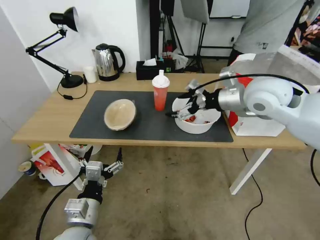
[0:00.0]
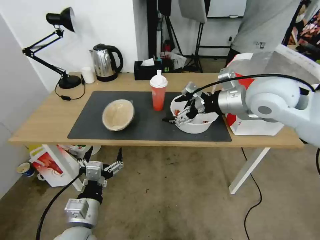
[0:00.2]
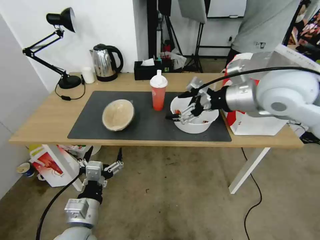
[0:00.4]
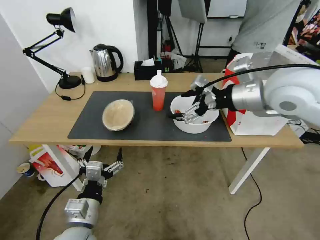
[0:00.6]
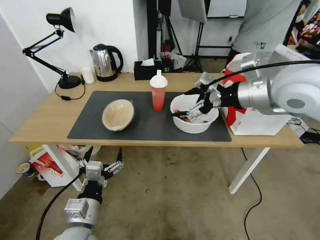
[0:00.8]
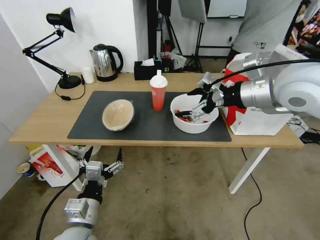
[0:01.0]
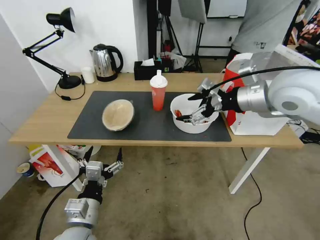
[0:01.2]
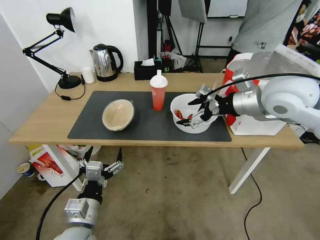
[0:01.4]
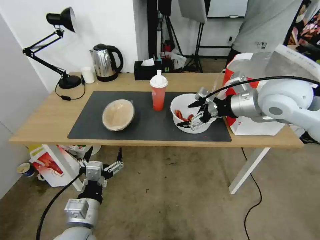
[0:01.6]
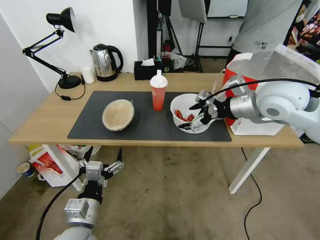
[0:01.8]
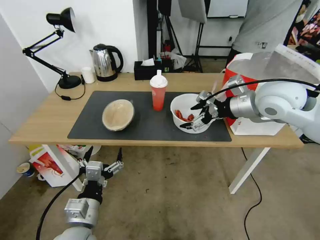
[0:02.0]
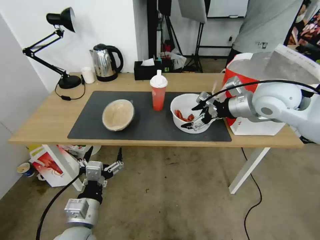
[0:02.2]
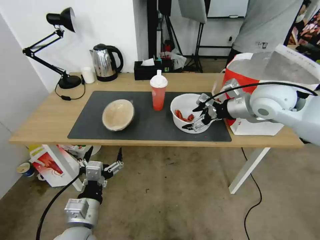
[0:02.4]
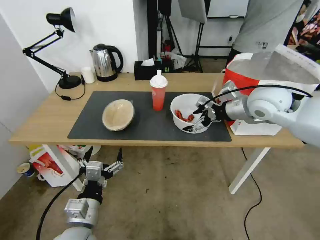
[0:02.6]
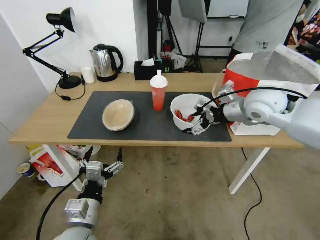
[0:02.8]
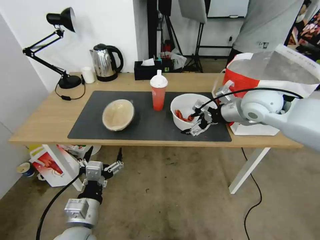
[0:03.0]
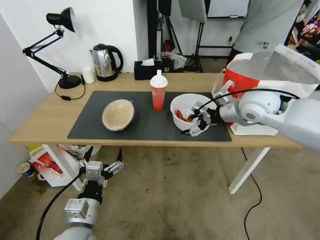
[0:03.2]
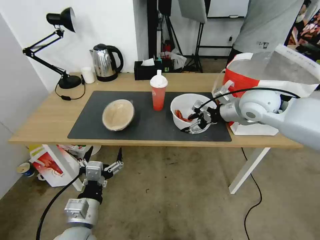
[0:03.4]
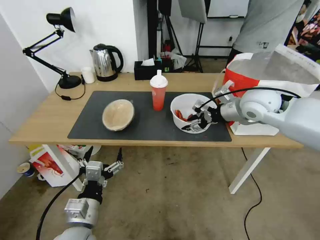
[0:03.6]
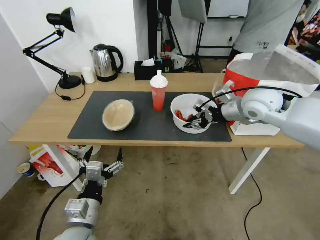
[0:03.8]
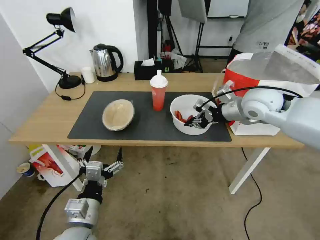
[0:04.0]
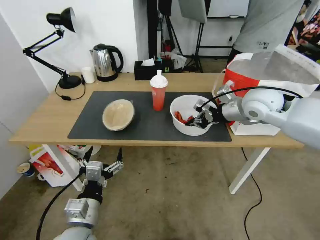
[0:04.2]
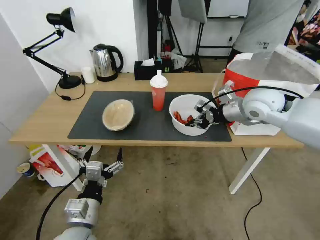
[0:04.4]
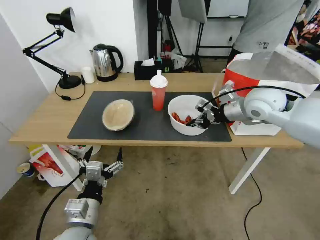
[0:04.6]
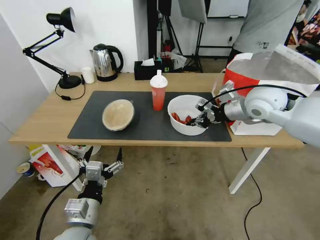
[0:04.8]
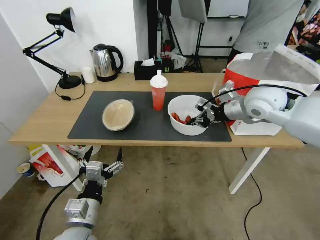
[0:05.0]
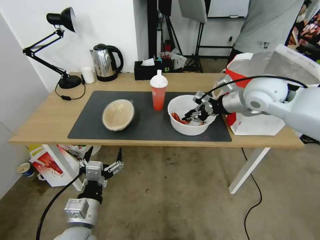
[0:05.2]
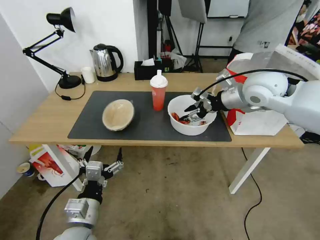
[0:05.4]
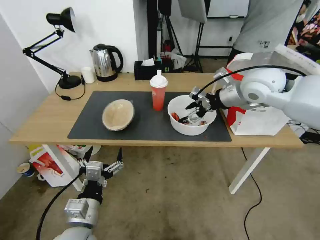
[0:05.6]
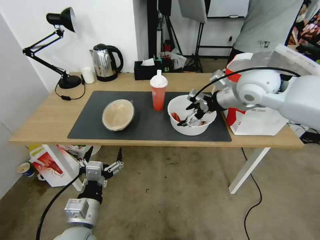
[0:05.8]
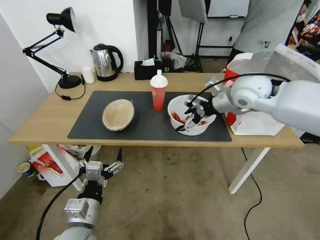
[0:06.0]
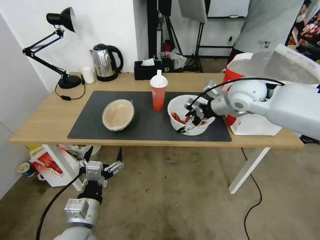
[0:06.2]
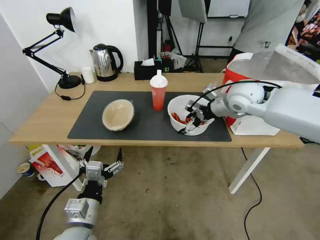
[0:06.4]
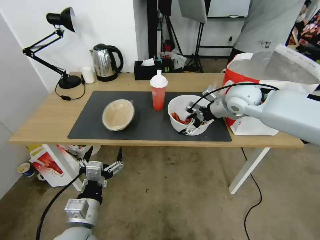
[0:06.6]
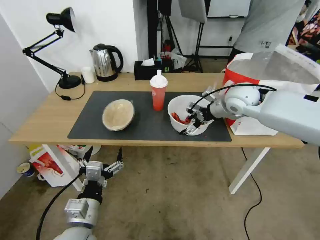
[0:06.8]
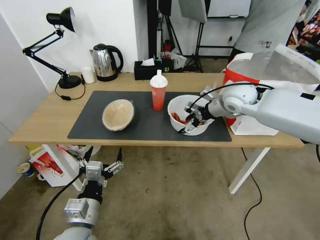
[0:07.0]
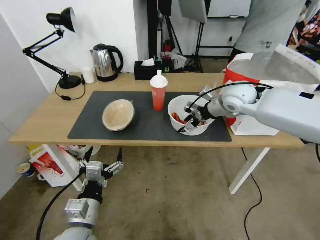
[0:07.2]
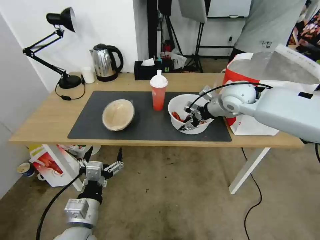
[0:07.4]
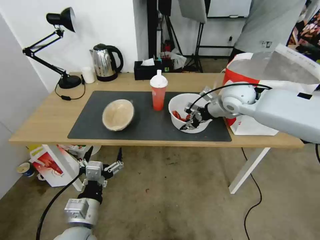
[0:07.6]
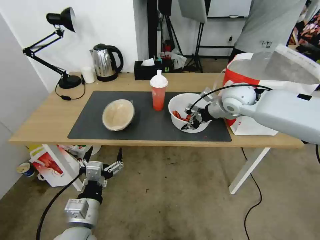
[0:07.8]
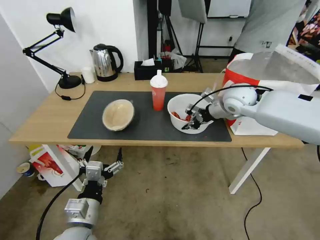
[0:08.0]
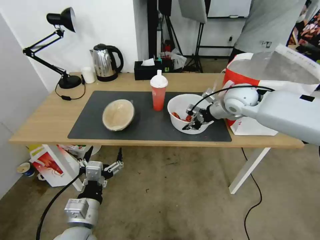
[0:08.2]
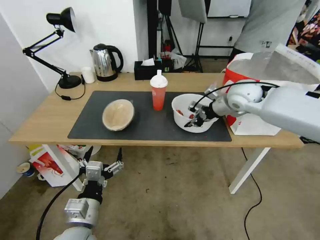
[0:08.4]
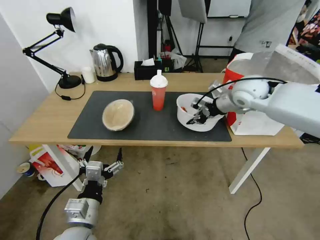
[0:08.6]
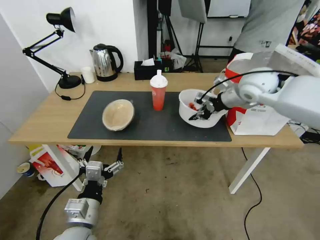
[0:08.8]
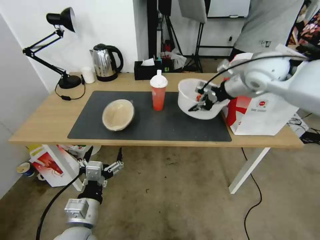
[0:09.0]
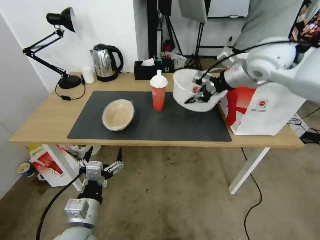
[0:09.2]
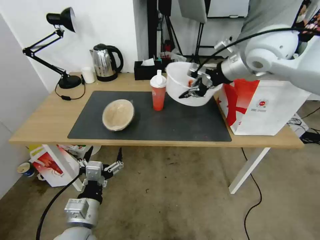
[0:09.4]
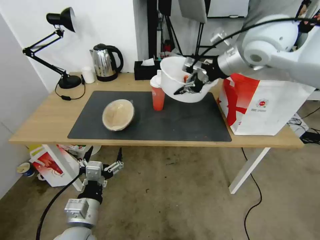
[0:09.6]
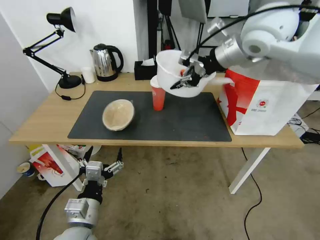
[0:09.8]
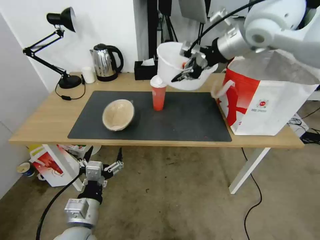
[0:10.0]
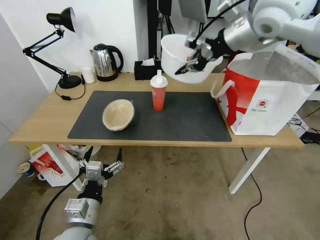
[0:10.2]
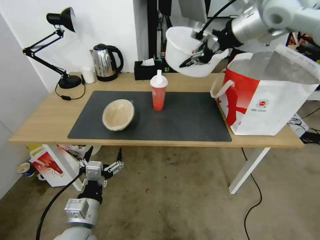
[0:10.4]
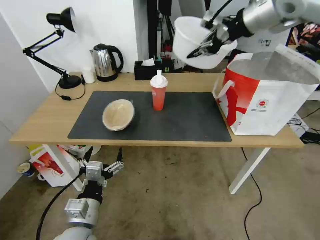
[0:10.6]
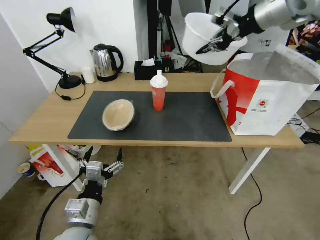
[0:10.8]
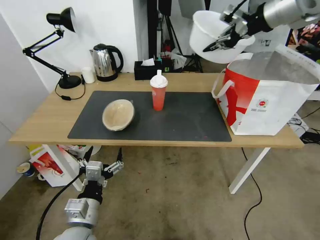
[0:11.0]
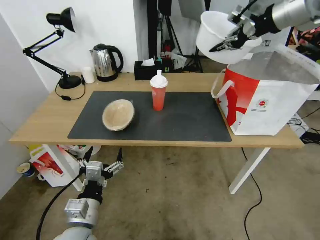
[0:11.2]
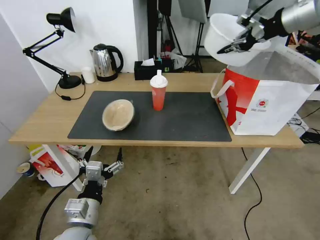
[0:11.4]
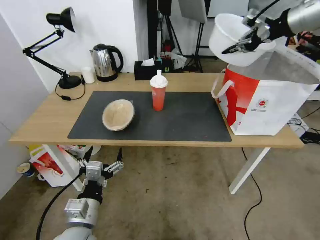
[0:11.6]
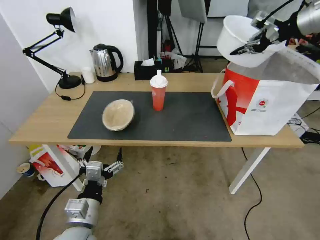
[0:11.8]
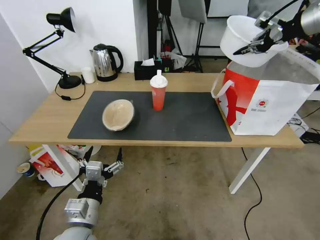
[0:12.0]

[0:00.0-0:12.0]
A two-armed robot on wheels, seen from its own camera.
Task of the whole recording: Pick up the trash from the table and place it into the takeout bag.
0:01.6 to 0:03.0: The right gripper travels downward by approximately 5 cm.
0:03.0 to 0:04.4: The right gripper closes up.
0:04.4 to 0:06.0: The right gripper shifts by approximately 5 cm, and opens.
0:06.0 to 0:07.6: The right gripper shifts approximately 5 cm downward, and closes.
0:07.6 to 0:09.0: The right gripper shifts roughly 10 cm upward.
0:09.0 to 0:10.4: The right gripper moves upward, approximately 15 cm.
0:10.4 to 0:12.0: The right gripper goes about 15 cm to the right.

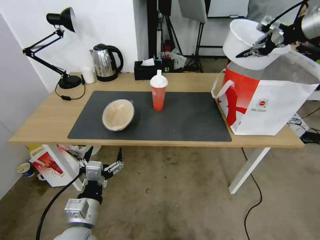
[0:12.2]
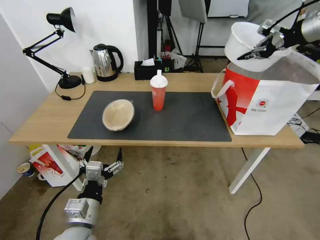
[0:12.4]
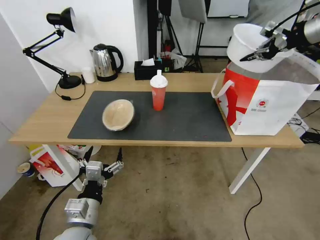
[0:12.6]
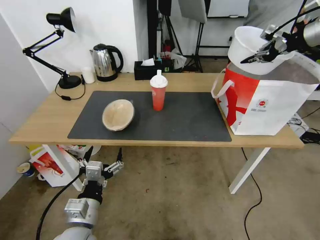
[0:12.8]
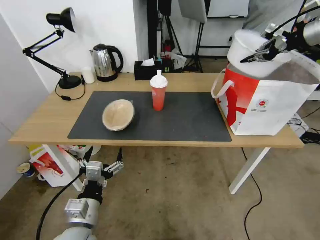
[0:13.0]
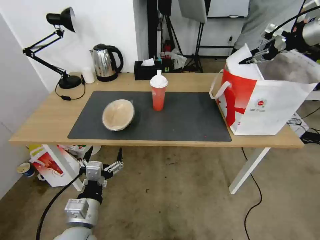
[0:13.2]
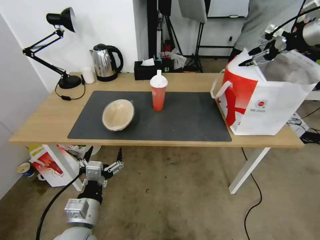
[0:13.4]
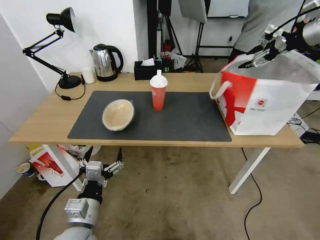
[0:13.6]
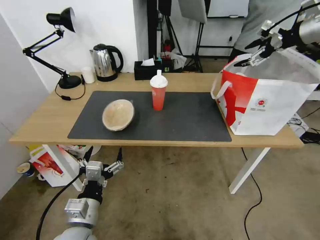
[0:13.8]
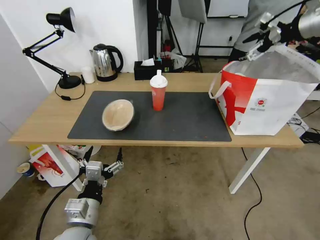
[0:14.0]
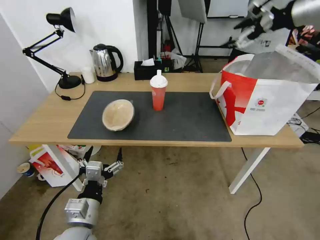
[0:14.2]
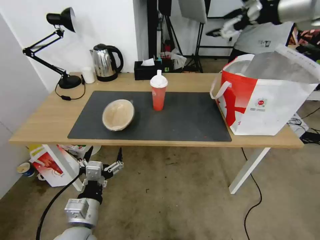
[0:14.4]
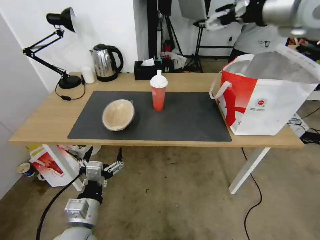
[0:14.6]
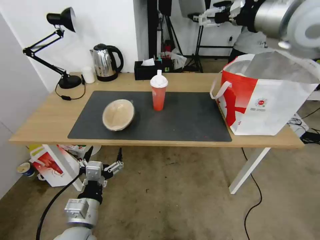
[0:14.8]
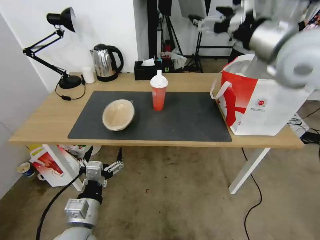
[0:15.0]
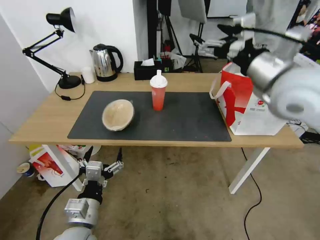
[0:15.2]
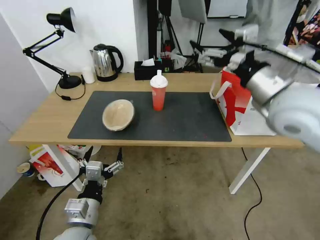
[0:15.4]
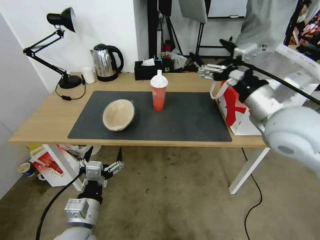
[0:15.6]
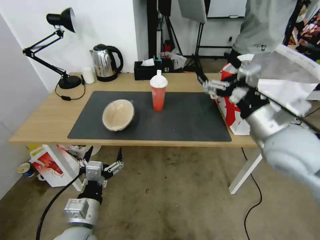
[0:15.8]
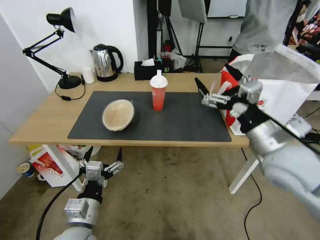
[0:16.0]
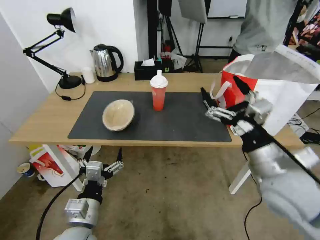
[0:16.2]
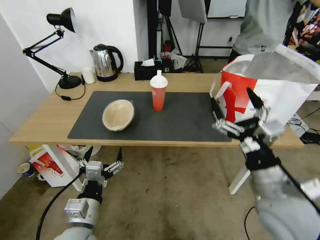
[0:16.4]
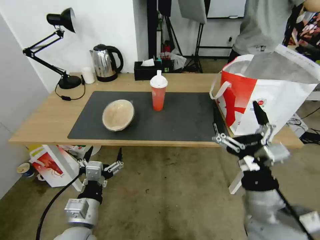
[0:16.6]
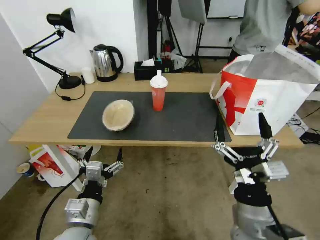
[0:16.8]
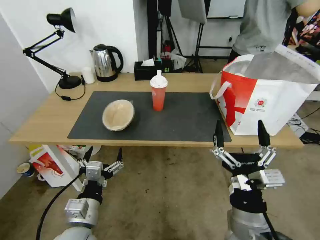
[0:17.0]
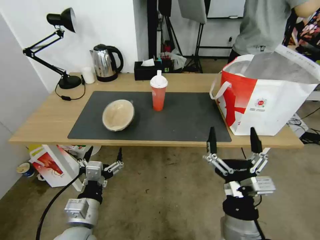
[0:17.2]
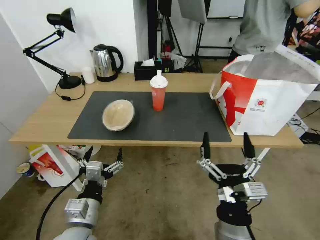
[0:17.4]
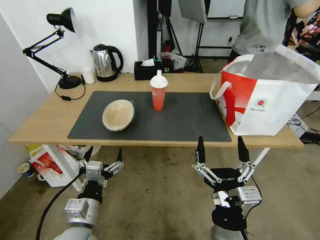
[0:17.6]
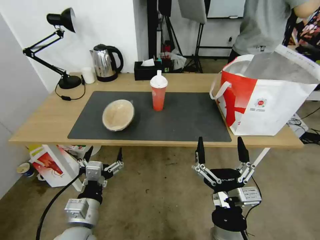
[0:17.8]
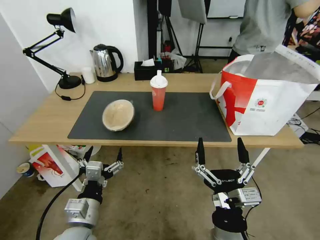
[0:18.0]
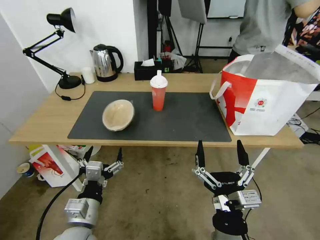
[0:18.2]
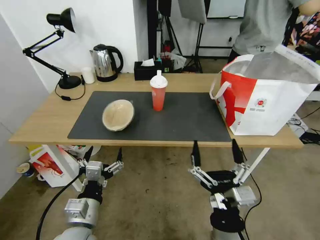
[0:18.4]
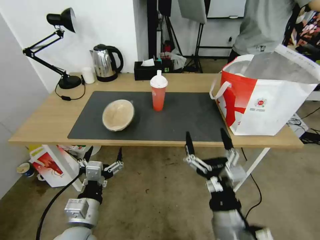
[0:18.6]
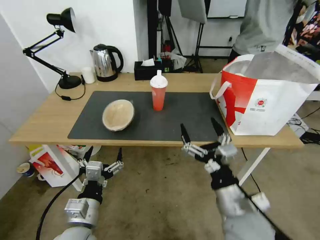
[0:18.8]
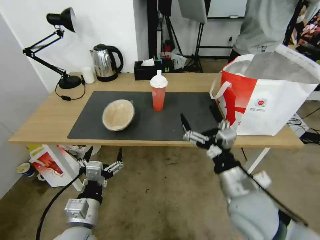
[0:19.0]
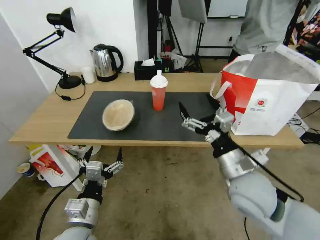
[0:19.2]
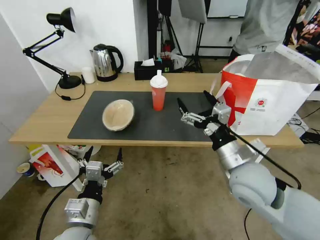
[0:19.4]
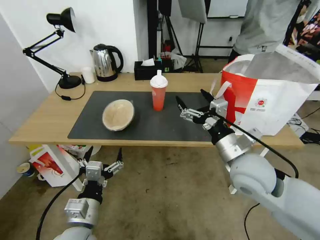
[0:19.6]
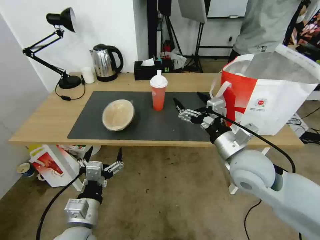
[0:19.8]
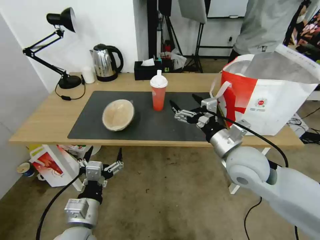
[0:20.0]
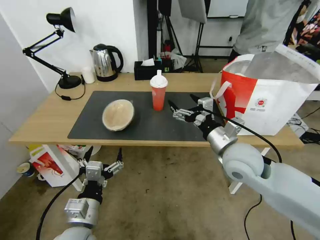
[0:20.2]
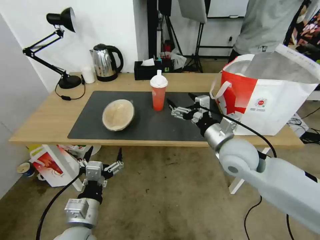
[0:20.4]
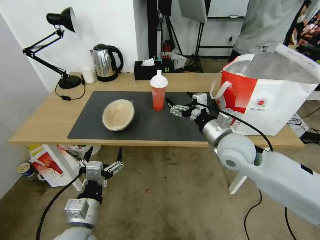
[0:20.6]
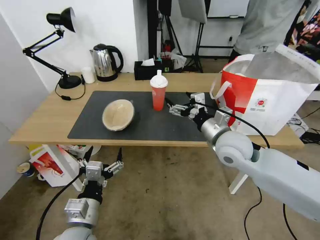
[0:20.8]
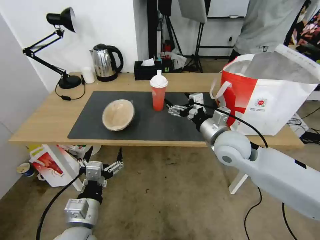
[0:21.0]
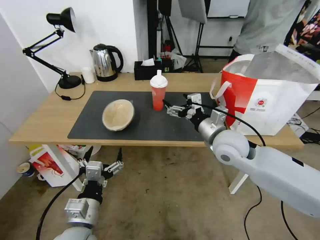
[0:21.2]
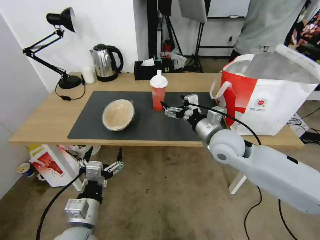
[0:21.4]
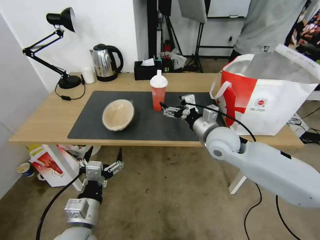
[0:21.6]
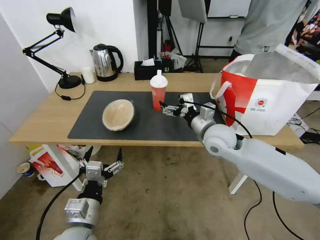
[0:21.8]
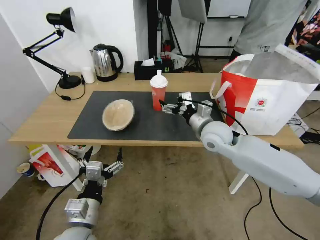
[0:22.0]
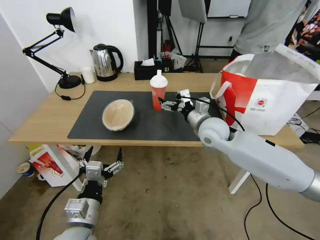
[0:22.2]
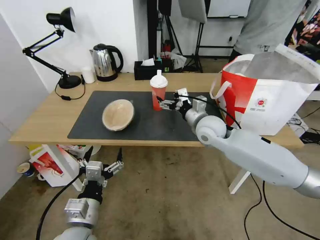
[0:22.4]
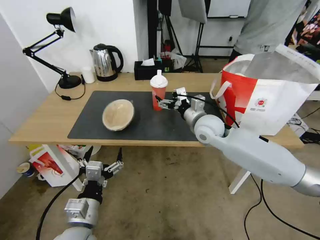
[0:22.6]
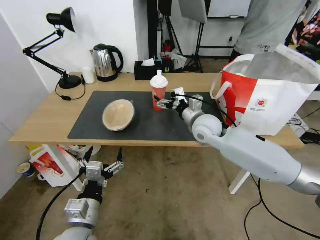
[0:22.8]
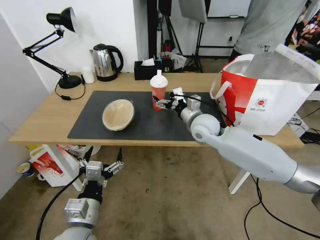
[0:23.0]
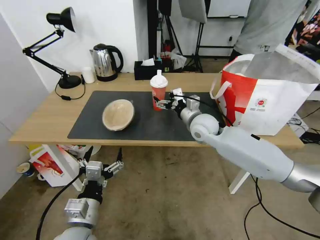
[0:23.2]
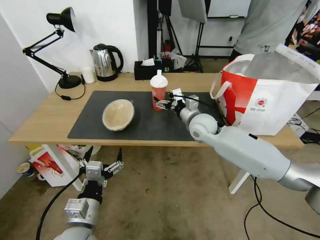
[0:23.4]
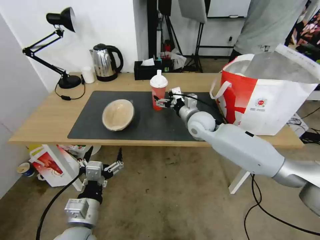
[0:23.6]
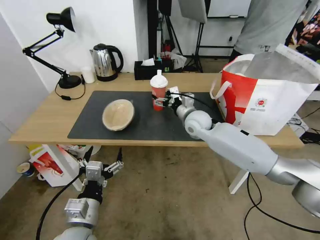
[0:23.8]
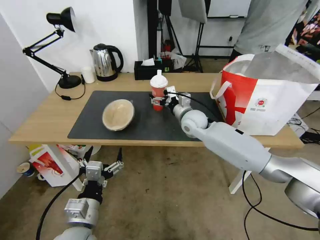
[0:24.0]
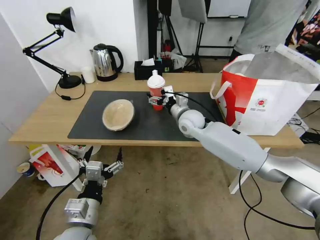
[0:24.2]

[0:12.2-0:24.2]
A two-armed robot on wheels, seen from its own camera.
Task of the whole recording: Pick up the trash from the table and place it into the takeout bag.
0:12.2 to 0:13.8: The right gripper opens up.
0:13.8 to 0:15.2: The right gripper heads to the left, backward and downward, covering about 25 cm.
0:15.2 to 0:16.6: The right gripper heads downward and backward, covering approximately 30 cm.
0:16.6 to 0:18.2: The right gripper heads to the left, backward and downward, covering some 10 cm.
0:18.2 to 0:19.8: The right gripper moves forward, upward and to the right, approximately 25 cm.
0:19.8 to 0:21.2: The right gripper is displaced forward by roughly 10 cm.
0:21.2 to 0:22.6: The right gripper shifts approximately 10 cm forward.
0:22.6 to 0:24.2: The right gripper is displaced forward by about 5 cm.
